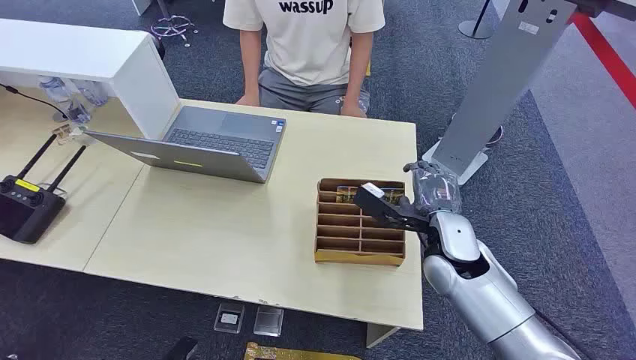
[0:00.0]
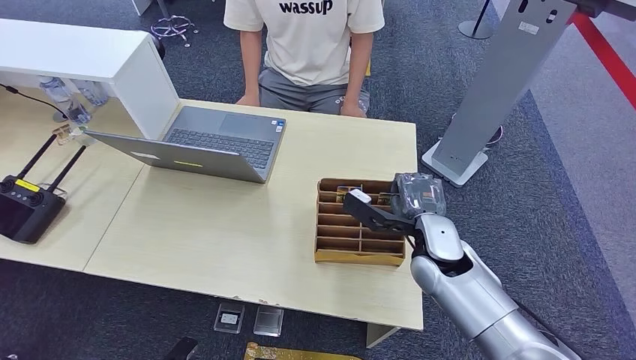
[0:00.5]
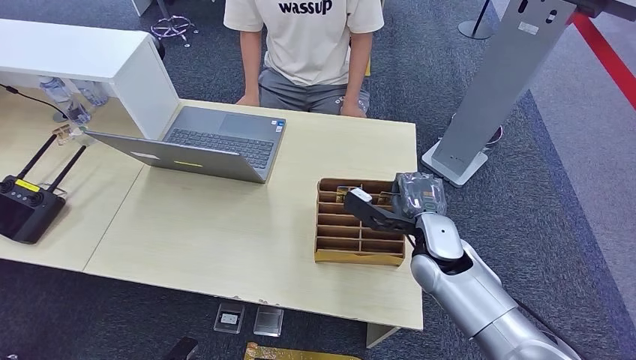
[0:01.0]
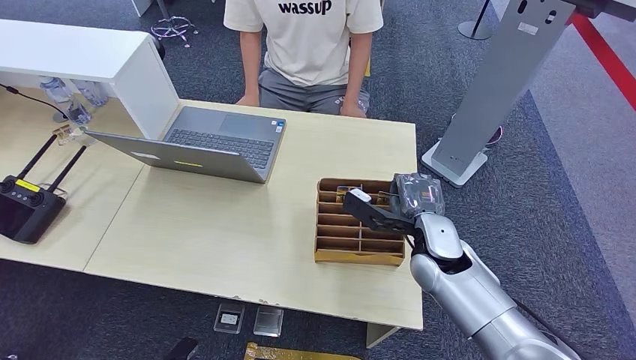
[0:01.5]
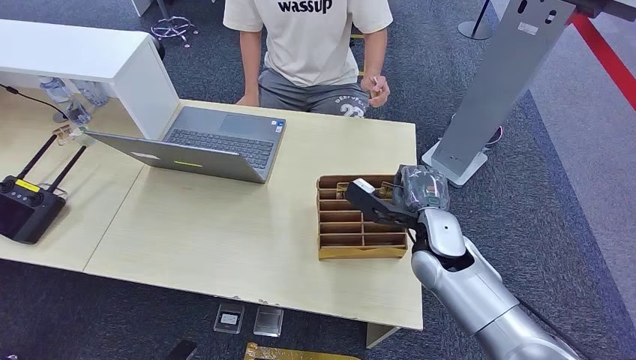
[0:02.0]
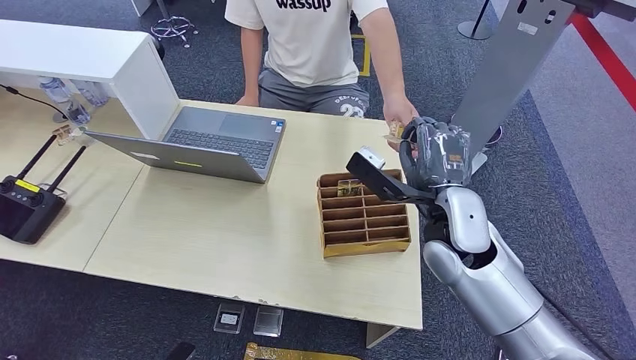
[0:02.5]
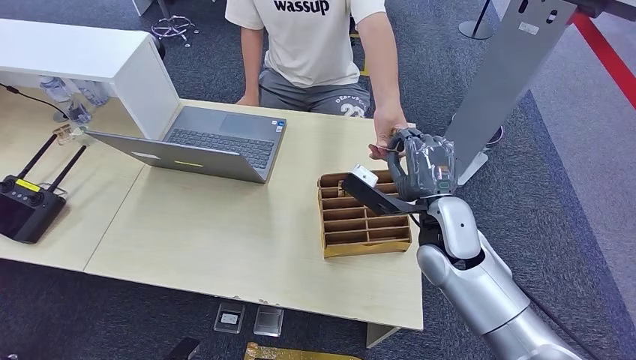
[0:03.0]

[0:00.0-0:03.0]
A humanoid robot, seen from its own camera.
Step, 0:00.0 to 0:02.0: Pick up the key card from the card box.
Step, 0:02.5 to 0:03.0: Hand the key card to the target.
0:01.5 to 0:03.0: The right hand is displaced upward by about 5 cm.

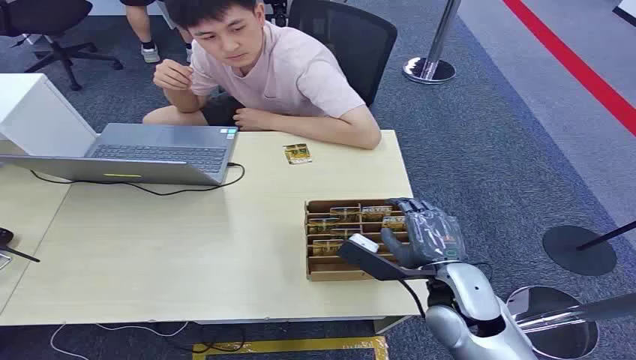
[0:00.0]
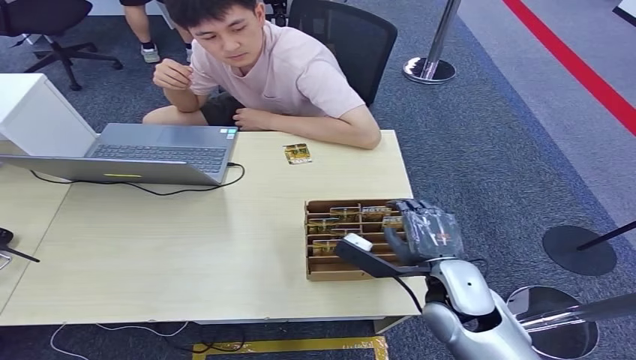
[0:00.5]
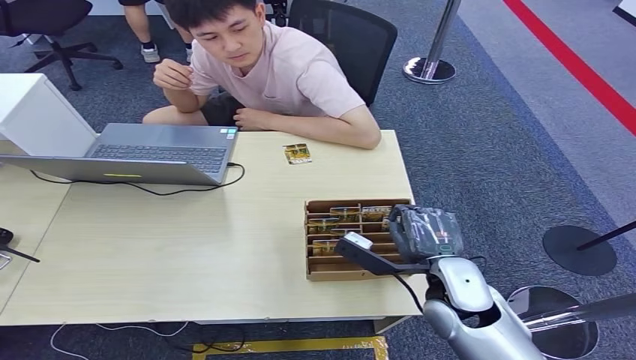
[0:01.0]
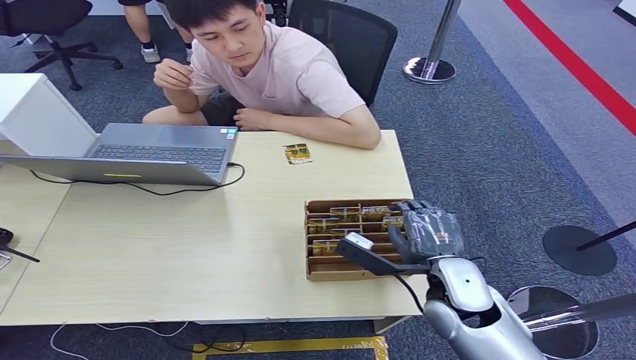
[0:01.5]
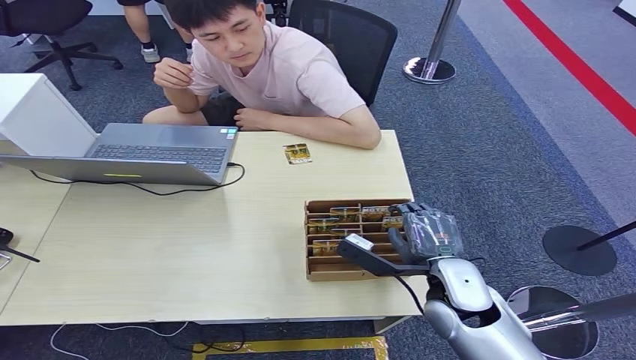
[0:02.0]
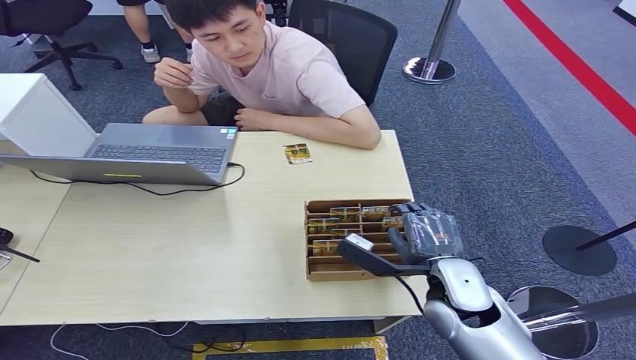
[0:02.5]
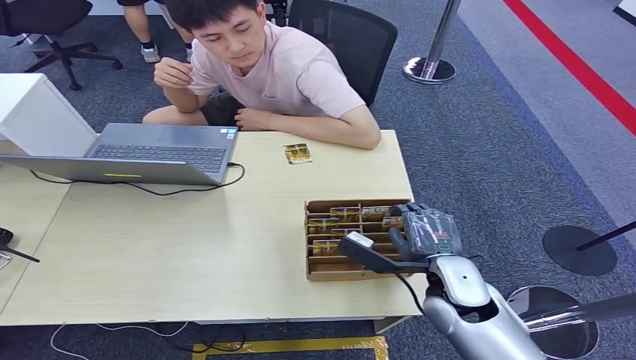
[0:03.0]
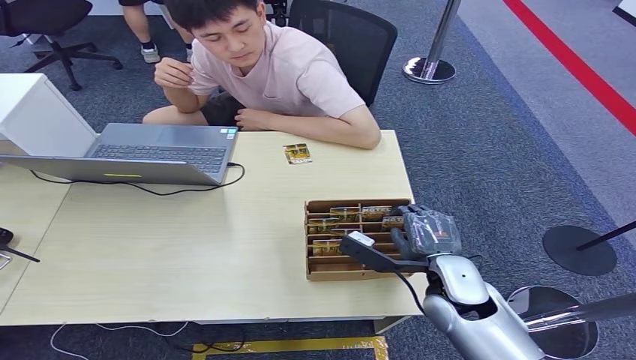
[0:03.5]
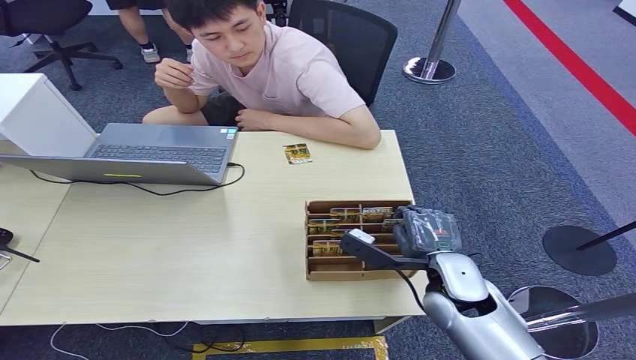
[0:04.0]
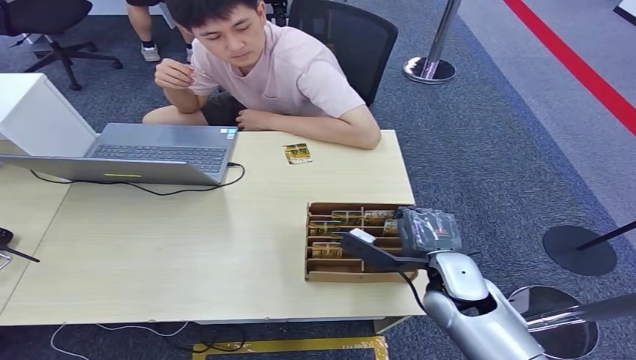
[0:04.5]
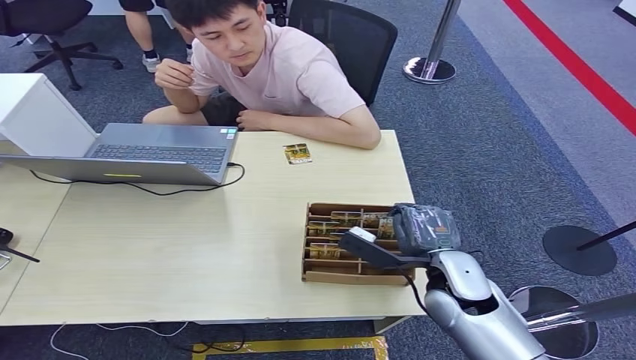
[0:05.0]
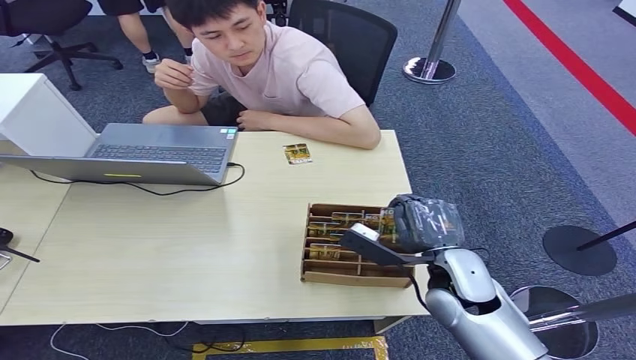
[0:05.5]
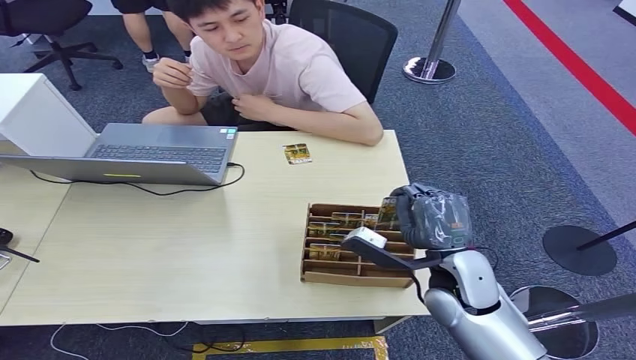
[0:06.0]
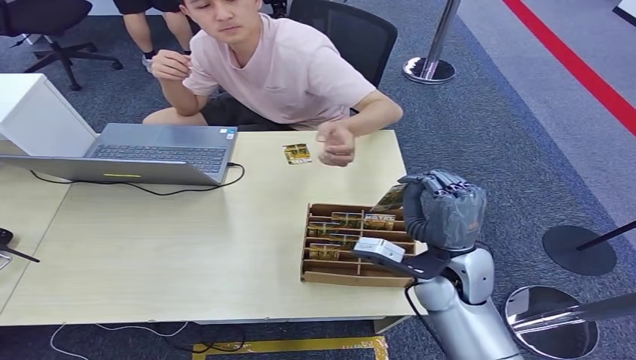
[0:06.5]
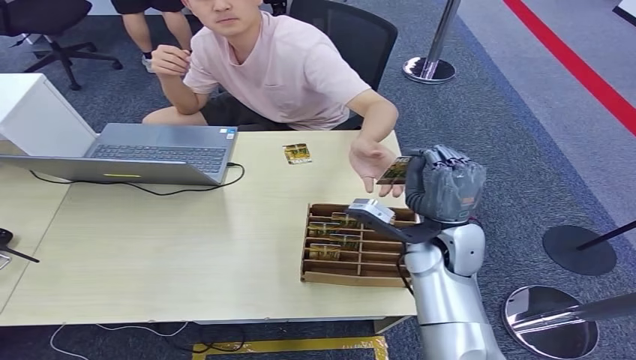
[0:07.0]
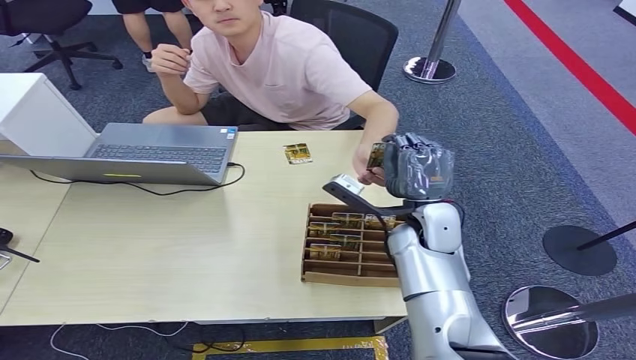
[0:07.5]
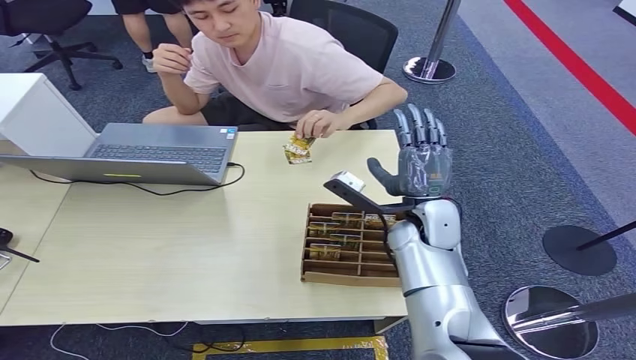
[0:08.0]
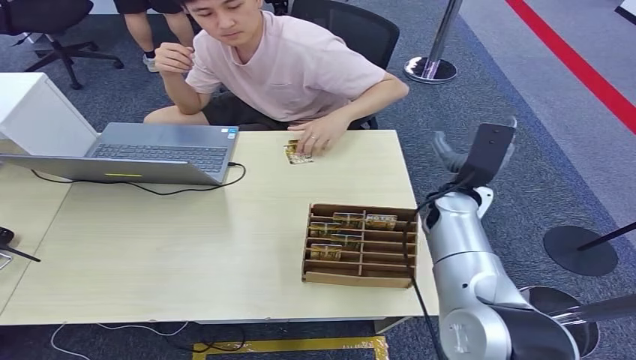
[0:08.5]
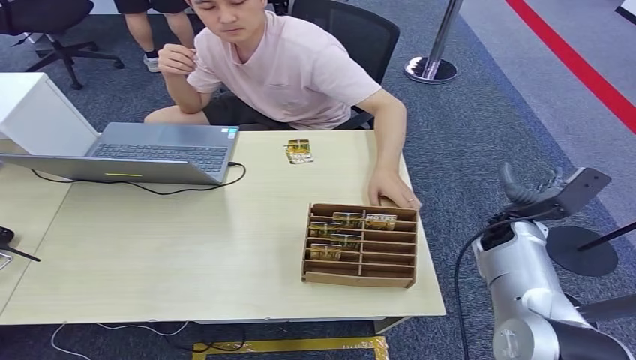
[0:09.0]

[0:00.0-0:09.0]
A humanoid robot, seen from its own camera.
Step, 0:00.0 to 0:05.5: Pick up the key card from the card box.
Step, 0:06.0 to 0:09.0: Hand the key card to the target.
0:02.0 to 0:04.5: The hands stay close to where they were, moving slightly.
0:04.5 to 0:07.0: The right hand heads upward and forward, covering roughly 10 cm.
0:07.0 to 0:09.0: The right hand is displaced to the right, downward and forward by some 15 cm.
